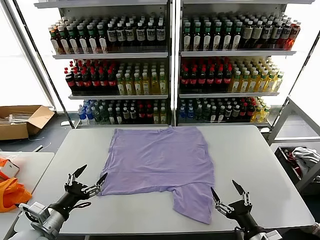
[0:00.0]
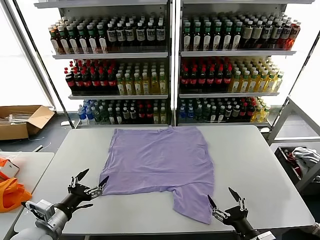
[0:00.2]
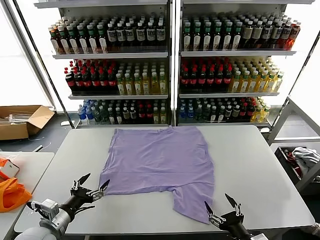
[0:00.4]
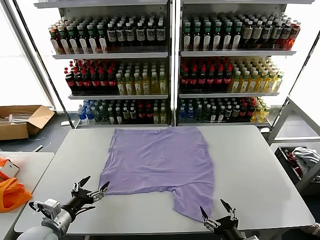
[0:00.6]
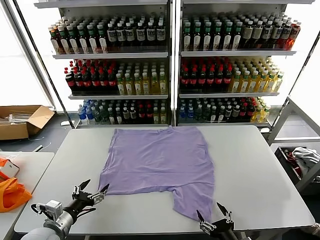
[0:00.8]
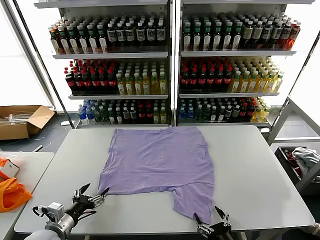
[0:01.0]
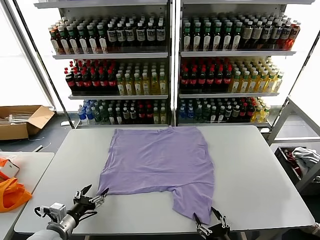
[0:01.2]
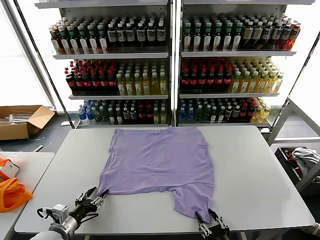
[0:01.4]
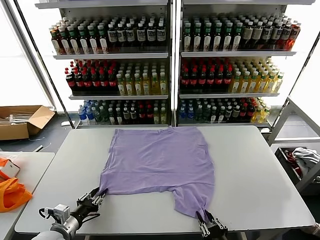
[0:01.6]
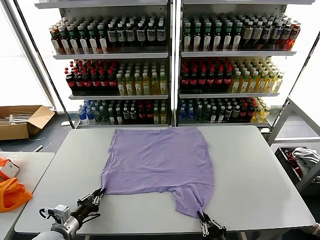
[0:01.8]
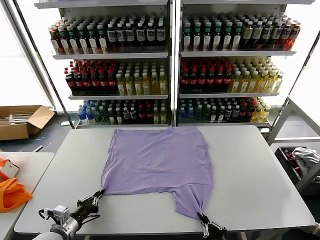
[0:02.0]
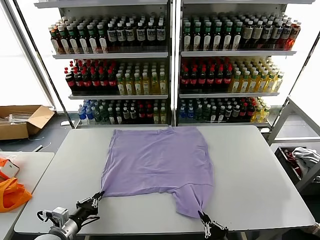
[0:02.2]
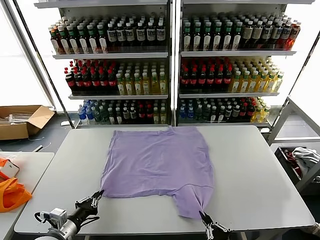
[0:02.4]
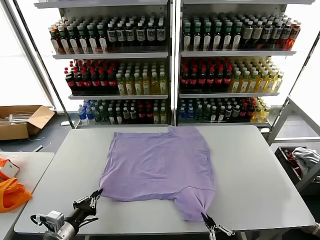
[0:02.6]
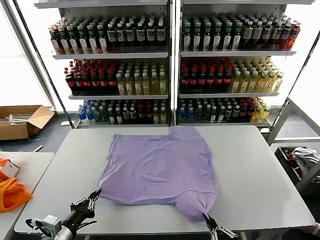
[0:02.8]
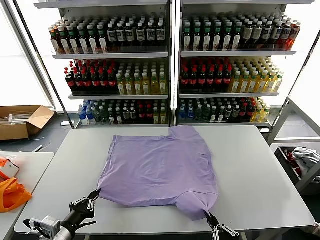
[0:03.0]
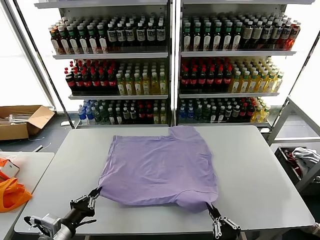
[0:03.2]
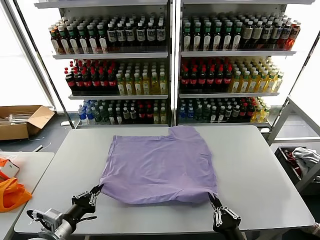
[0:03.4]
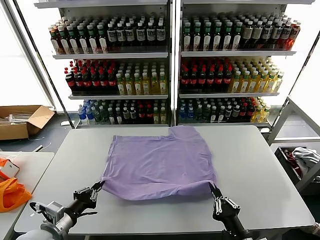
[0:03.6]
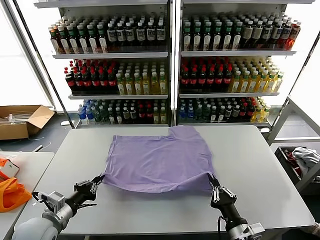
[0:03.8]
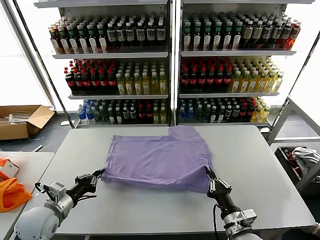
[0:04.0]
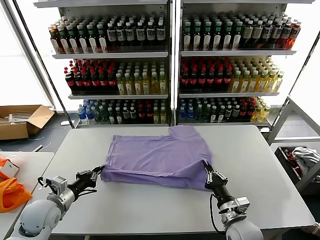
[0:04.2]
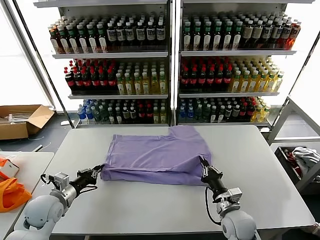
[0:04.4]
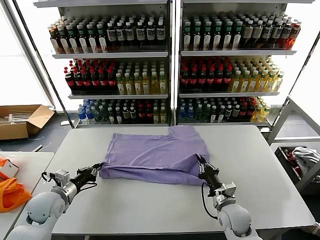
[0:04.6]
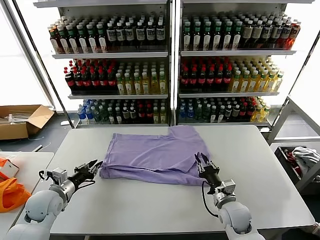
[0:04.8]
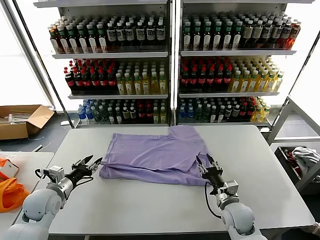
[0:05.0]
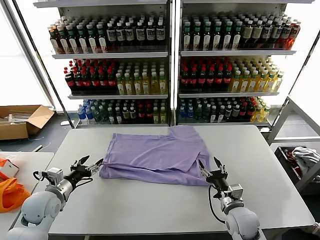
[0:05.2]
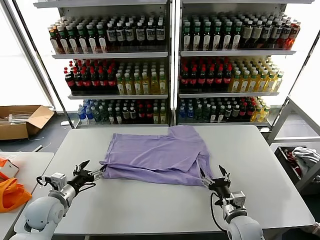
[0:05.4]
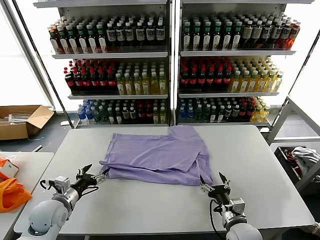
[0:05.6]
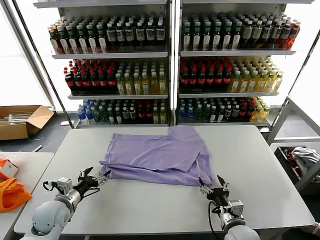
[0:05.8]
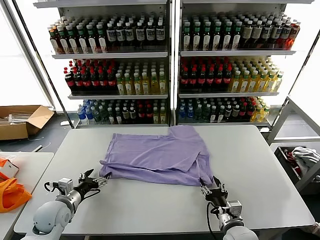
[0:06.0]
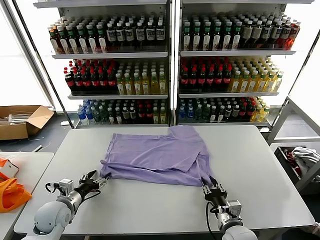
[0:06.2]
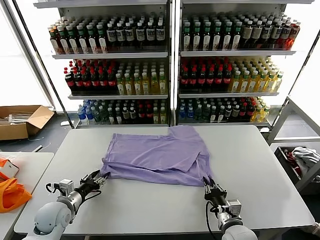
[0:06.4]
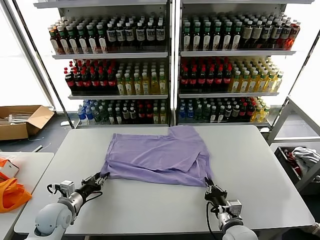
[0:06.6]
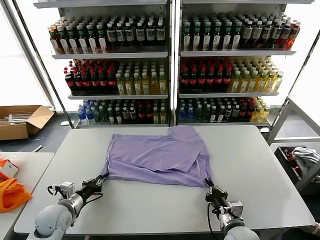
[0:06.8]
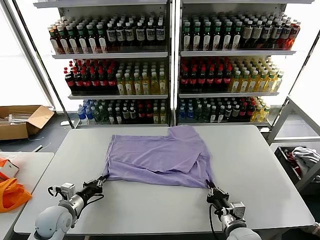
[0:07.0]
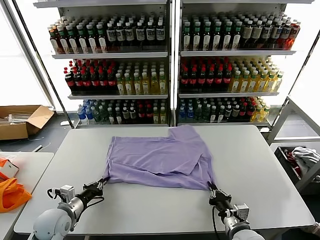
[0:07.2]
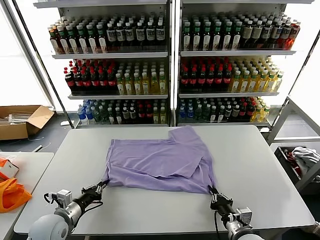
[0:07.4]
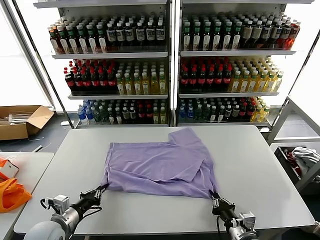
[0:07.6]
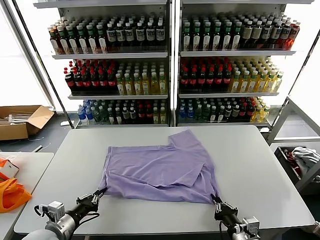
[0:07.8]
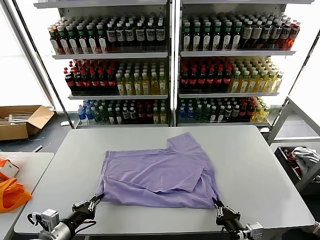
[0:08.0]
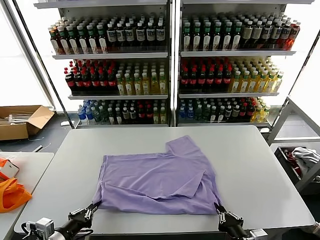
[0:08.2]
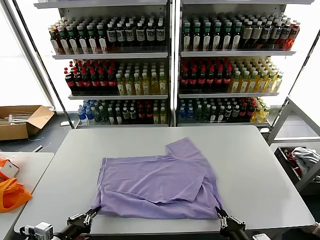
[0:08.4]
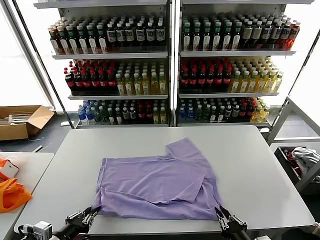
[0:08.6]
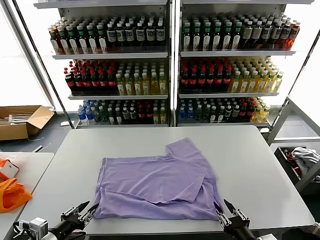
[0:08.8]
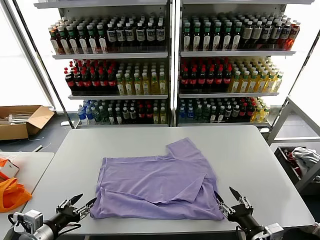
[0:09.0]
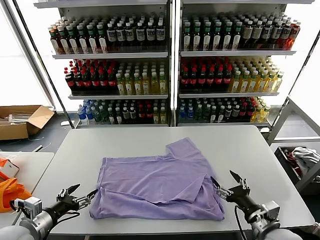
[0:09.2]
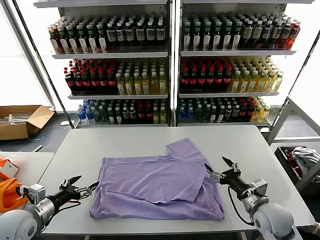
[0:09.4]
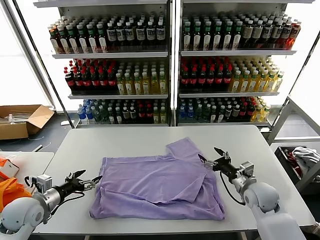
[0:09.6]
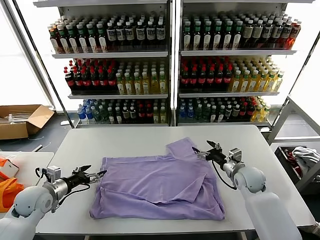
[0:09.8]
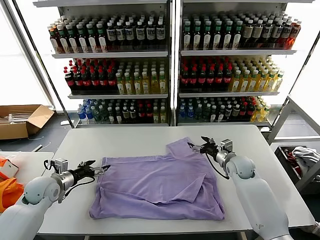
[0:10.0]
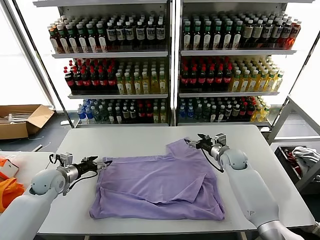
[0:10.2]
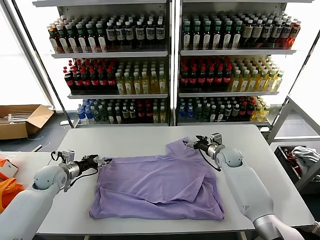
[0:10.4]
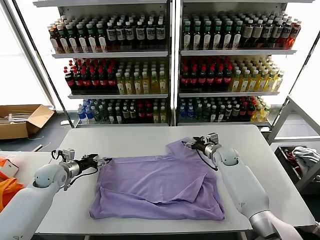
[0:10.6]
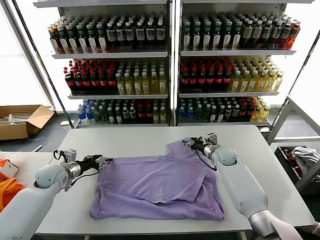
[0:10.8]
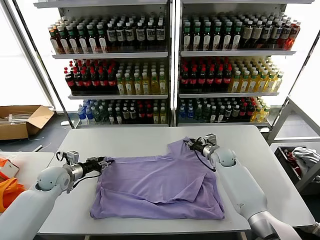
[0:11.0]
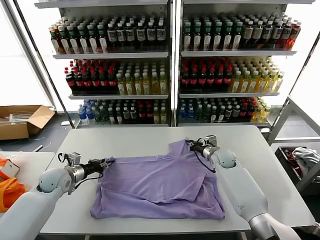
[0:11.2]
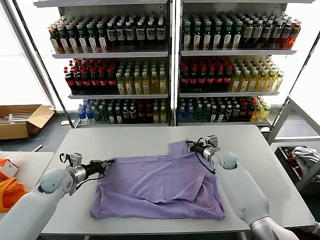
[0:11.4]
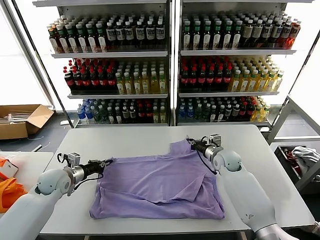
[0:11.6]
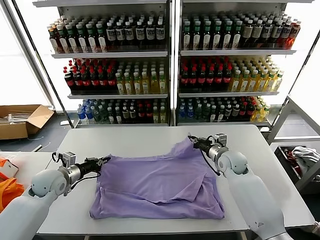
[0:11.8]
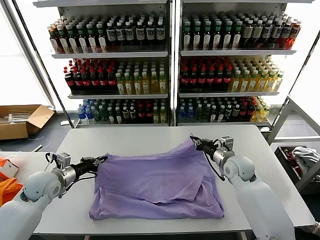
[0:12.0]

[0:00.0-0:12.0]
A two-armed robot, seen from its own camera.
Task of the whole recording: fold and organize the clothes.
Step, 0.0 to 2.0 s: use both grippers simultaneously to clamp the lower edge of the clothing fabric.
Step, 2.2 to 4.8 s: use both grippers to drag the lower edge of the fabric forward and fold it over the upper edge.
Step, 5.0 to 8.6 s: Drag the clothes downward with both gripper.
Step, 8.8 to 11.4 s: use both grippers simultaneously to clamp the upper edge of the clothing fabric.
1.6 to 3.0 s: The left gripper shifts roughly 10 cm upward and backward, and closes; the right gripper shifts by approximately 5 cm.
3.0 to 4.4 s: The right gripper shifts approximately 25 cm forward. The left gripper heads forward, covering approximately 15 cm.
4.4 to 6.0 s: The right gripper shifts approximately 5 cm backward, and opens. Meanwhile the left gripper opens up.
6.0 to 7.6 s: The two grippers go approximately 5 cm backward. The right gripper closes up. Meanwhile the left gripper closes its fingers.
7.6 to 9.0 s: The right gripper goes about 5 cm upward, and opens, while the left gripper heads backward and upward, covering about 10 cm, and opens up.
9.0 to 10.4 s: The two grippers go about 30 cm forward.
10.4 to 12.0 s: The right gripper moves backward and upward, about 15 cm, and closes. Meanwhile the left gripper heads backward, covering roughly 5 cm, and closes its fingers.

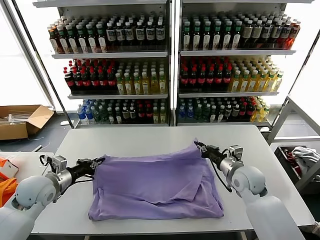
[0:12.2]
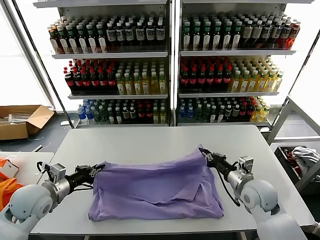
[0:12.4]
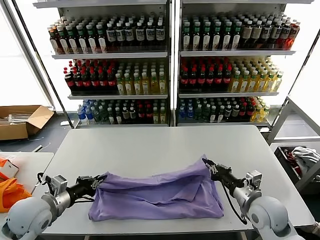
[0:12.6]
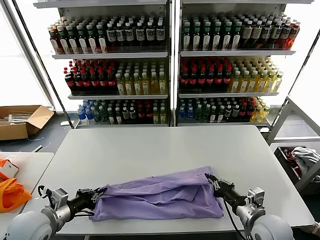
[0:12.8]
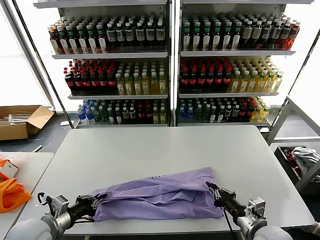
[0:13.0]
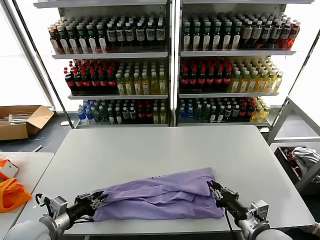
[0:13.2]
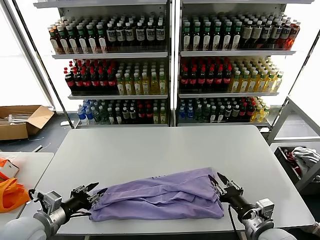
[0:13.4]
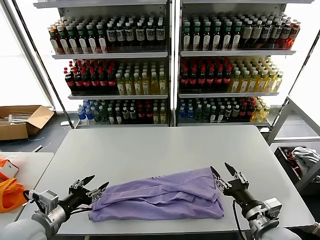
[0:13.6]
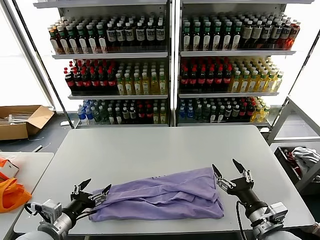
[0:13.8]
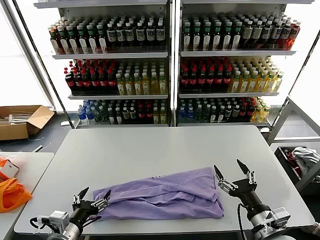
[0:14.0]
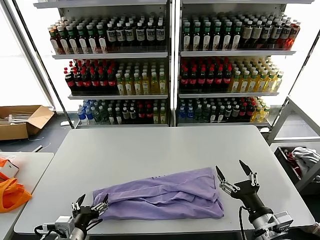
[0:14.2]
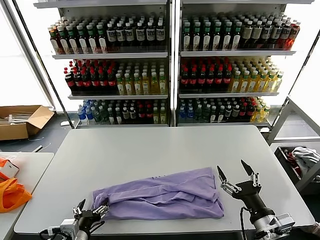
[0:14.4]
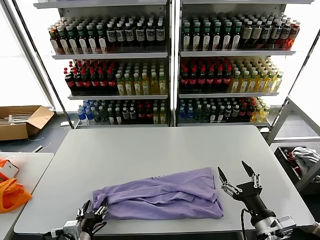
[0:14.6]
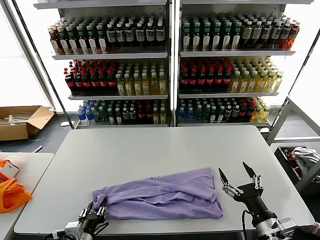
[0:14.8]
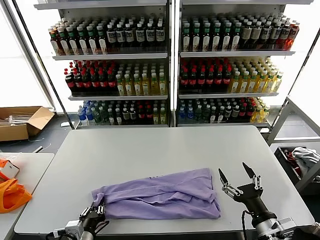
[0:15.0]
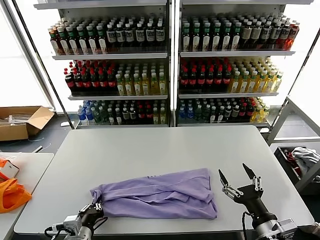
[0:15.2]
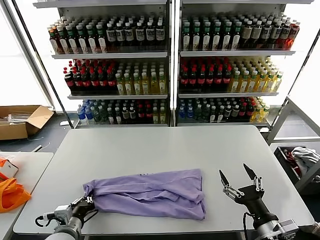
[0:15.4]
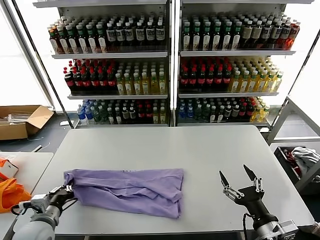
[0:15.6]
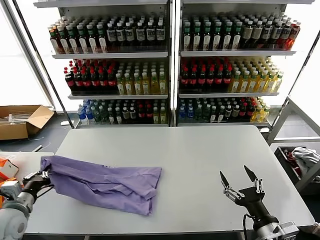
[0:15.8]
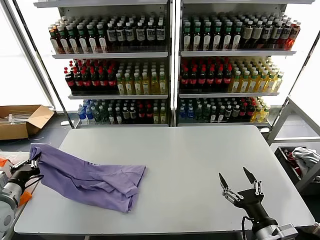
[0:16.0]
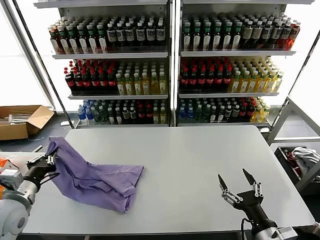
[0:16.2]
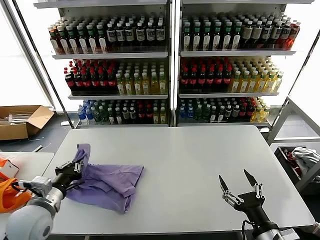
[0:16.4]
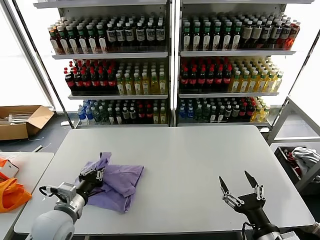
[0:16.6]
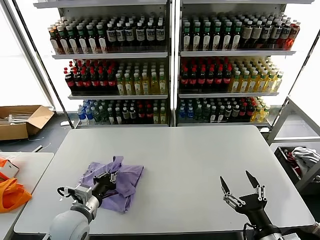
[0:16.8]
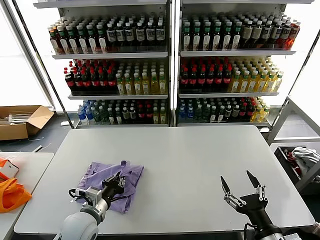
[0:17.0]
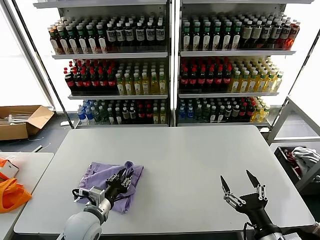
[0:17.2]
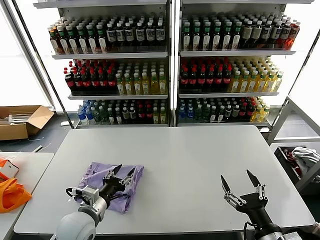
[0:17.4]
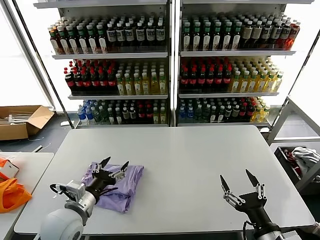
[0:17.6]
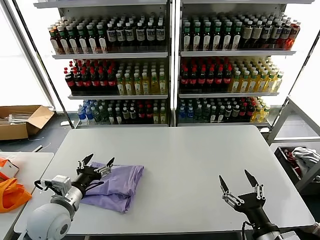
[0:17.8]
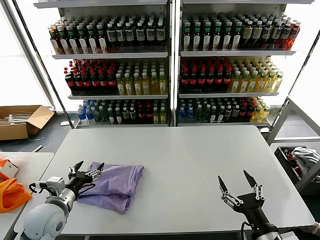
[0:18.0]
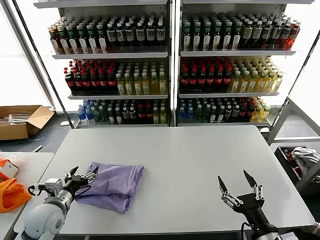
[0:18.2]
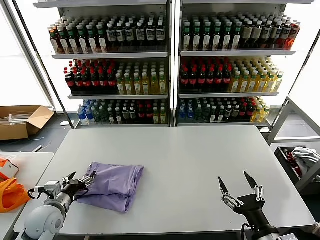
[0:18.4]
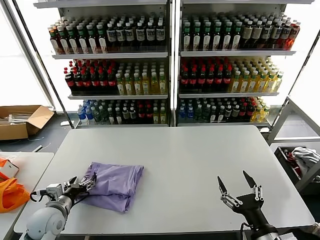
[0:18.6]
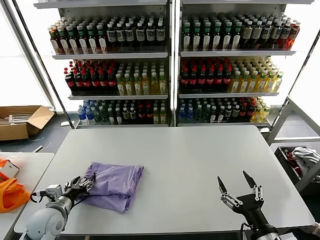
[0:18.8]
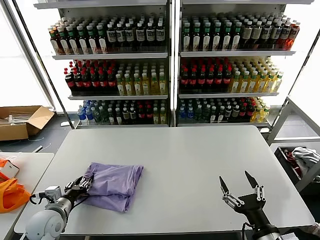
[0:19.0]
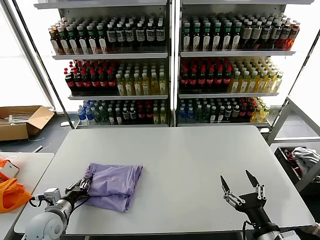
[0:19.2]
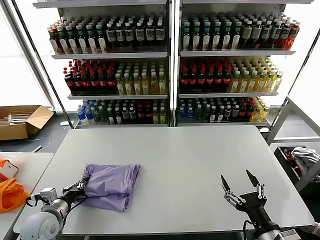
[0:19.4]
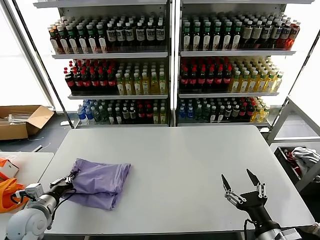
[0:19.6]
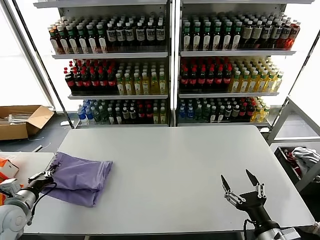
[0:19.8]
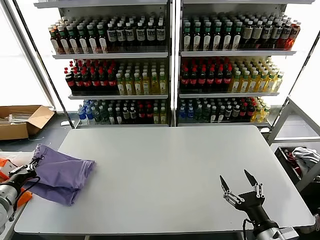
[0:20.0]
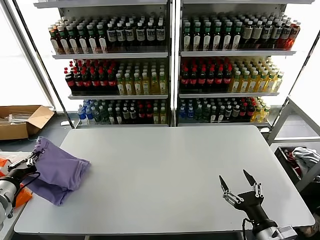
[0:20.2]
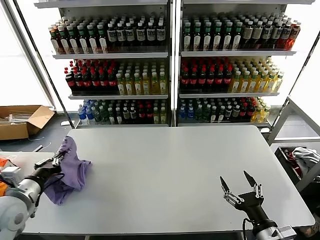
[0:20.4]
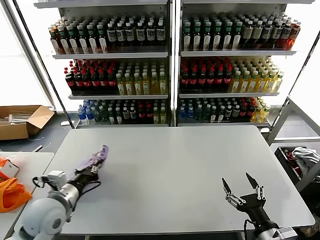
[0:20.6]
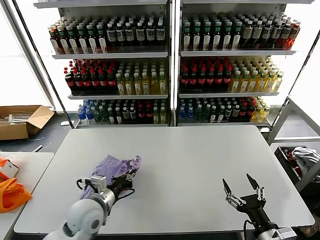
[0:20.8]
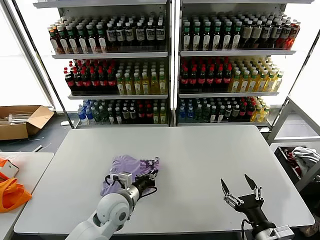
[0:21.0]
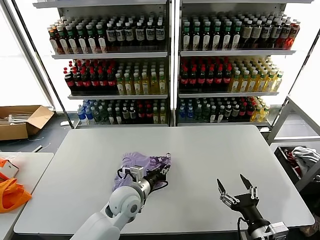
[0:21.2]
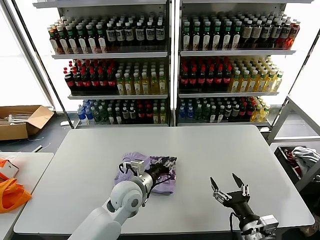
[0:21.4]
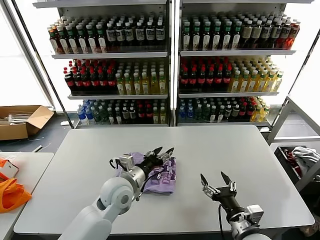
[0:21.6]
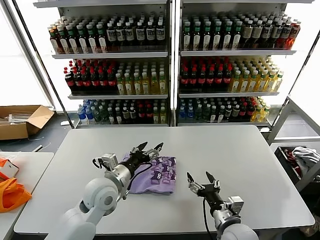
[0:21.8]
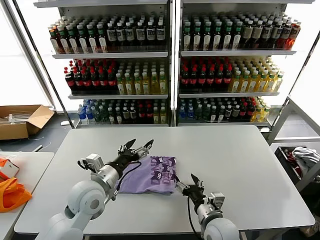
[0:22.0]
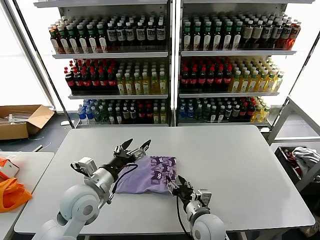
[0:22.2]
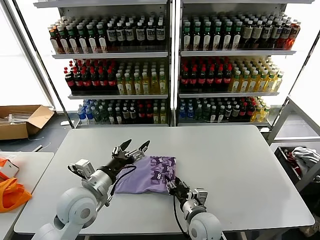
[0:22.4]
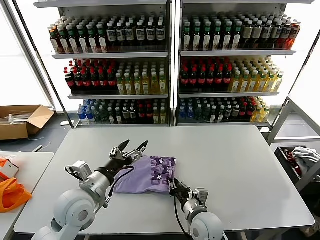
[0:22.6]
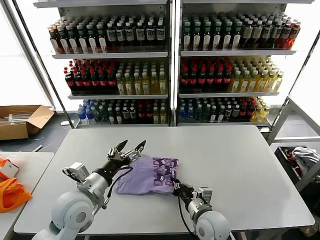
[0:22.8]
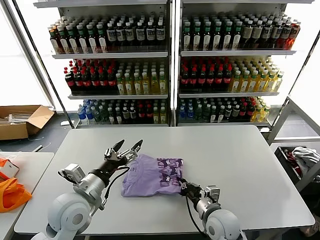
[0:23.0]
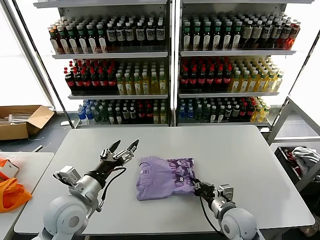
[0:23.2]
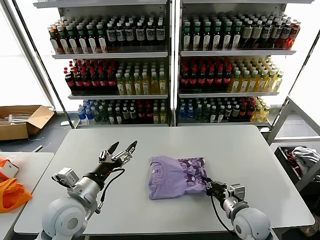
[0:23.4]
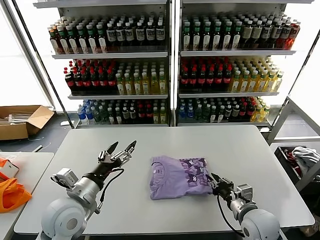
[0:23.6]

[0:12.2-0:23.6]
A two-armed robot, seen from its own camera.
Task of the whole recording: fold and organize the clothes.
Step, 12.2 to 13.2 s: use both grippers to drag the upper edge of the fabric backward and fold it over the lower edge.
Step, 13.4 to 15.0 s: use the left gripper to clamp the left edge of the fabric.
Step, 15.4 to 17.2 s: use the left gripper to drag the left edge of the fabric to the left and folds it over the right edge.
Step, 17.4 to 21.2 s: Flip the folded clothes over with left gripper.
12.2 to 13.6 s: Both grippers travel together backward, some 15 cm. The right gripper opens up. The left gripper opens its fingers.
13.6 to 15.0 s: The left gripper is displaced downward and to the right by roughly 15 cm.
15.0 to 16.4 s: The left gripper goes roughly 20 cm upward, to the left and forward.
16.4 to 17.8 s: The left gripper travels to the right by roughly 5 cm, and opens its fingers.
17.8 to 19.4 s: The left gripper heads downward and to the left, covering some 10 cm, and closes.
19.4 to 20.8 s: The left gripper shifts roughly 15 cm to the right and upward.
20.8 to 22.2 s: The right gripper is displaced to the left, forward and downward by roughly 20 cm. Meanwhile the left gripper reaches approximately 15 cm to the right, then returns, and opens.
22.2 to 23.6 s: The left gripper changes place by some 5 cm, while the right gripper goes some 15 cm to the right, and closes its fingers.
